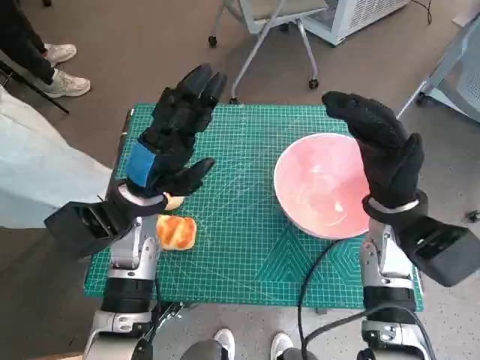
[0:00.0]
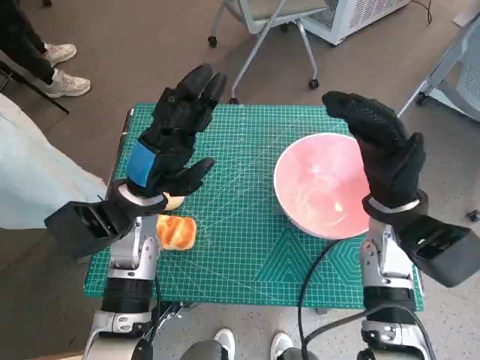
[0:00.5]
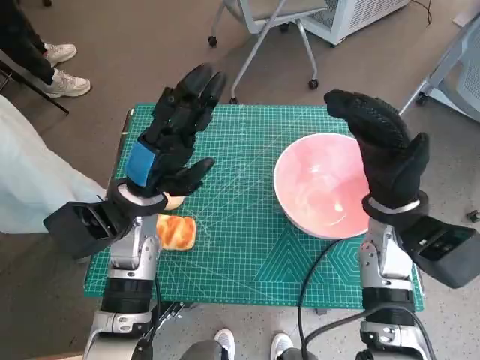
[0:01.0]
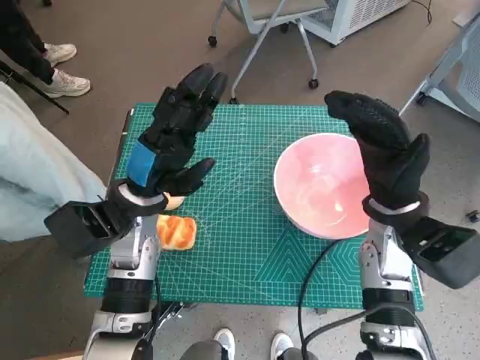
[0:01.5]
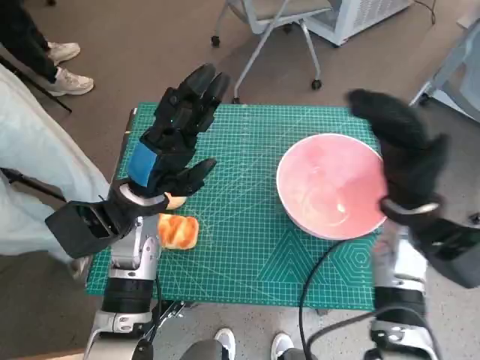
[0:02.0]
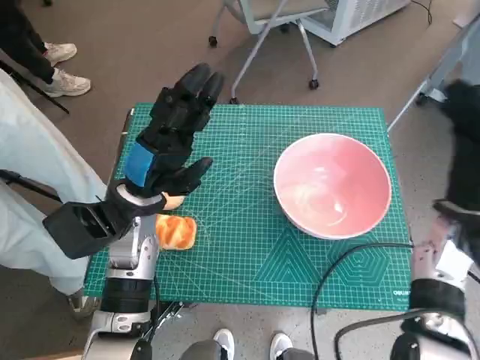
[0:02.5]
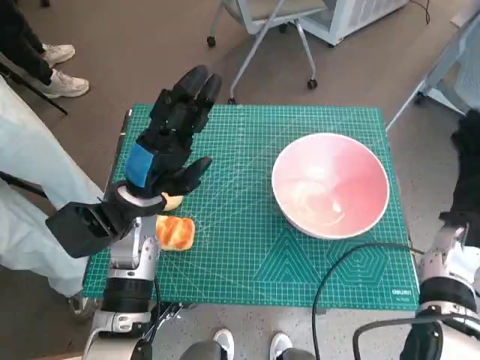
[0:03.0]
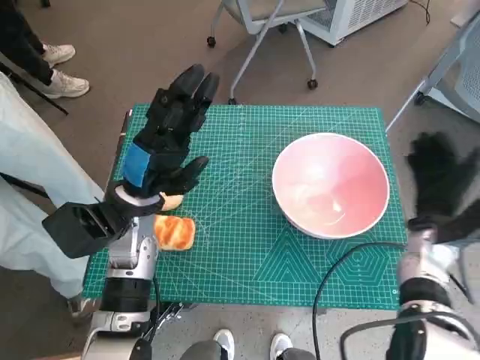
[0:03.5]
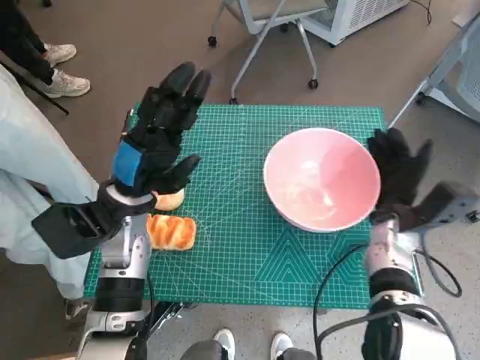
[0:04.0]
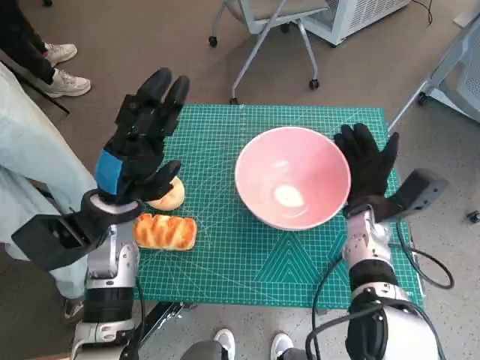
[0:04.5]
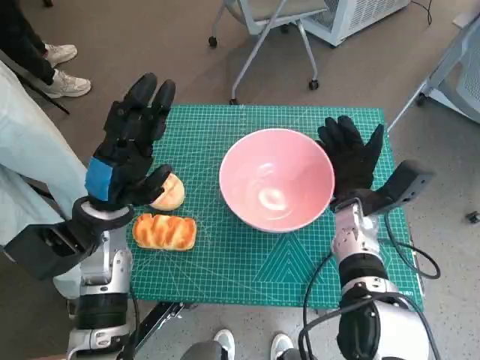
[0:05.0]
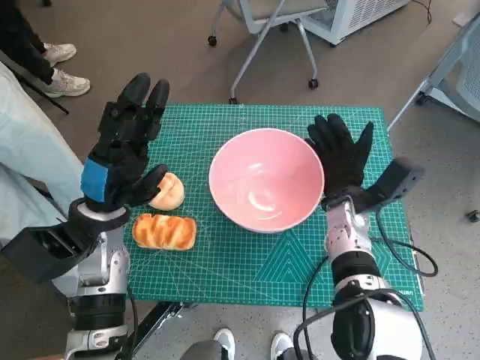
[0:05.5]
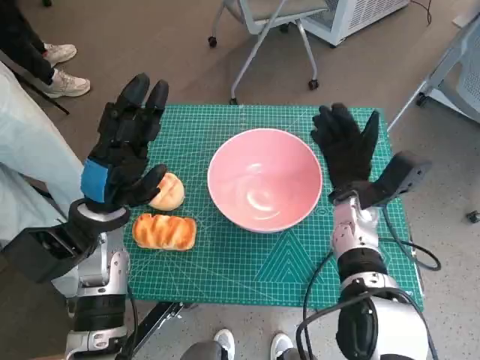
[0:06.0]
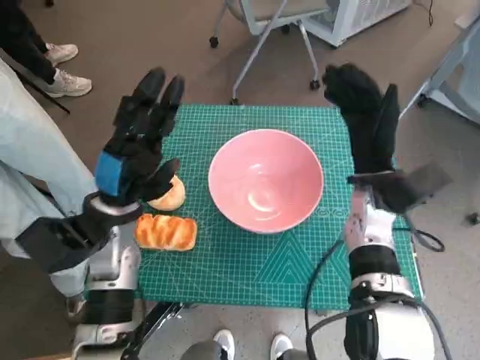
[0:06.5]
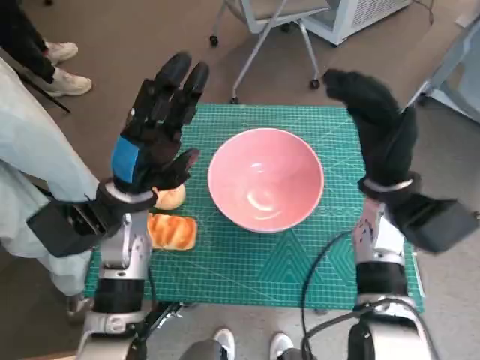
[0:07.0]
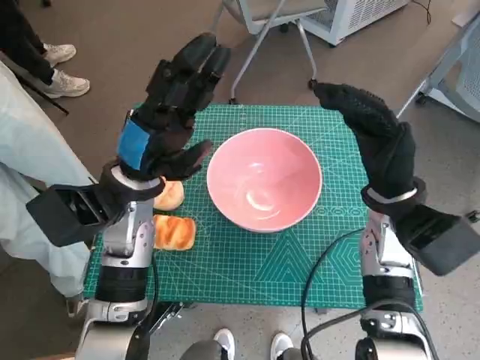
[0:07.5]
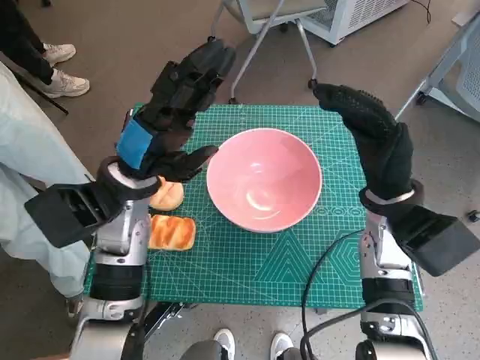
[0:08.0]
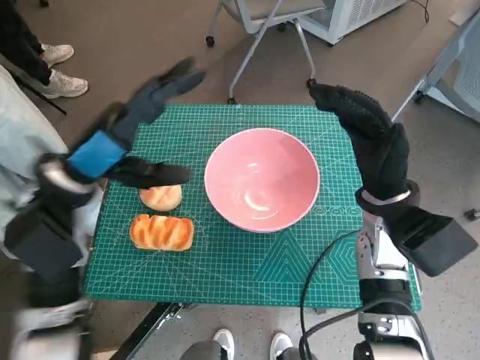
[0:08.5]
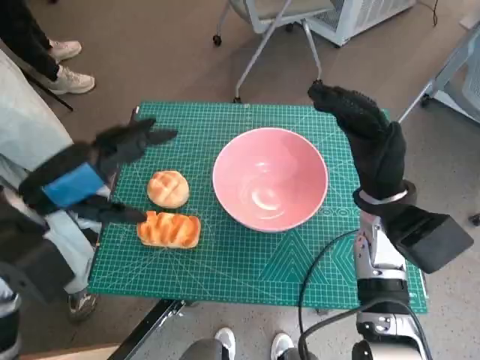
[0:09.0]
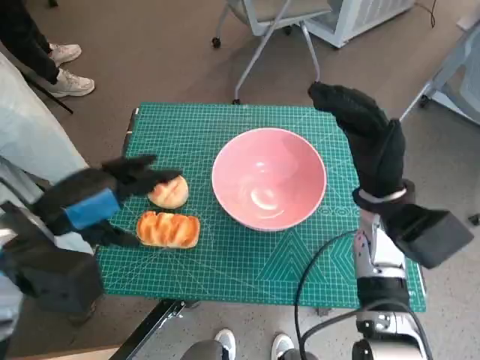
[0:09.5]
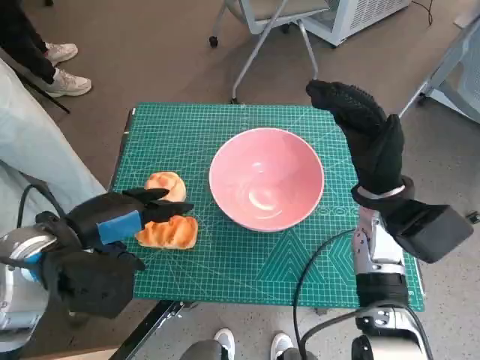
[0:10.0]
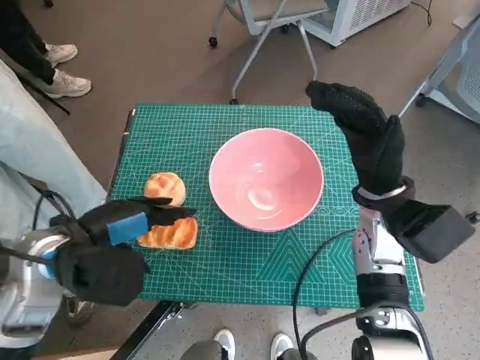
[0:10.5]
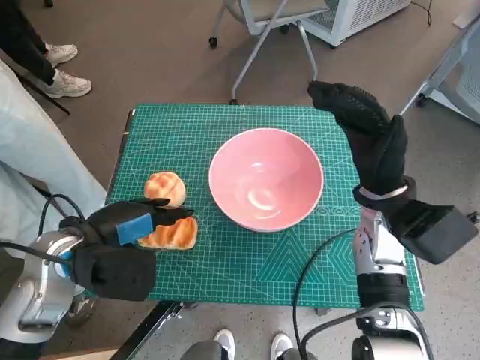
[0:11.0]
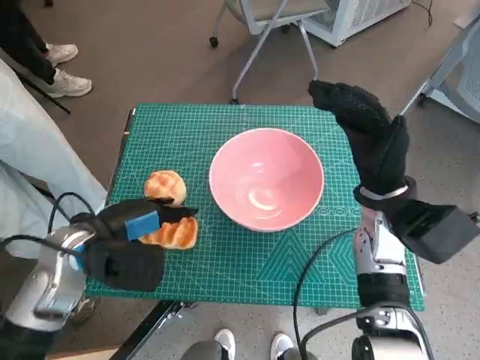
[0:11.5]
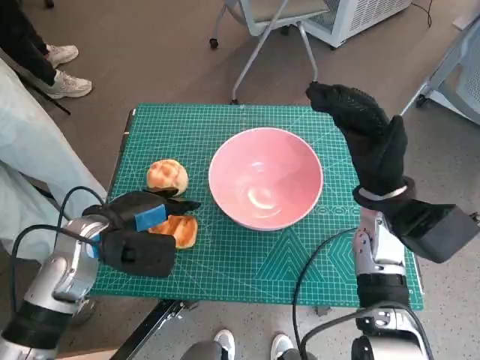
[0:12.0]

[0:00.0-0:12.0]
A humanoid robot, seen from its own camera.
Task of the whole recording: Push the bowl into the center of the table and put the bread into the bowl.
Step, 0:00.0 to 0:06.5: Move the pink bowl to the center of table with right hand.
0:02.0 to 0:04.0: The right hand shifts some 10 cm downward, and reaches roughly 10 cm to the right, then returns.
0:04.0 to 0:06.0: The right hand moves to the left, some 5 cm.
0:06.0 to 0:08.0: The left hand ends up about 5 cm from where it was. The right hand goes approximately 5 cm upward.
0:08.0 to 0:10.0: The left hand heads backward and to the left, covering some 10 cm.
0:10.0 to 0:12.0: The left hand is displaced downward by approximately 5 cm.

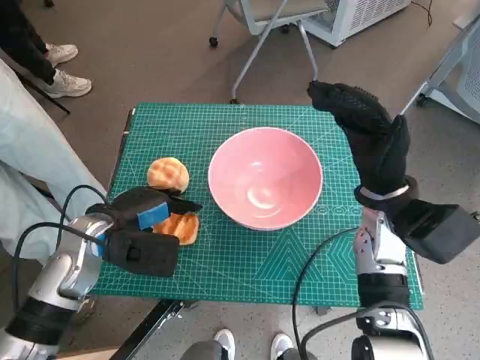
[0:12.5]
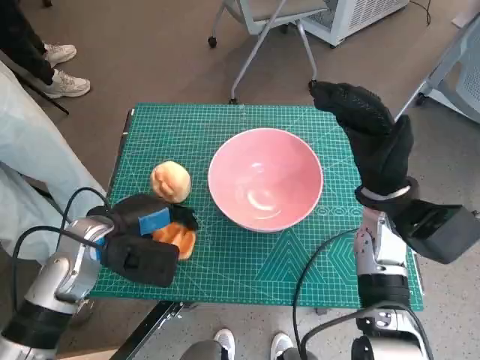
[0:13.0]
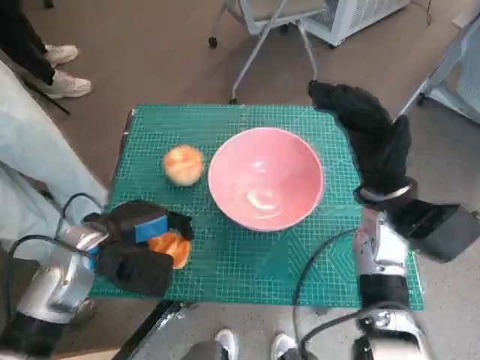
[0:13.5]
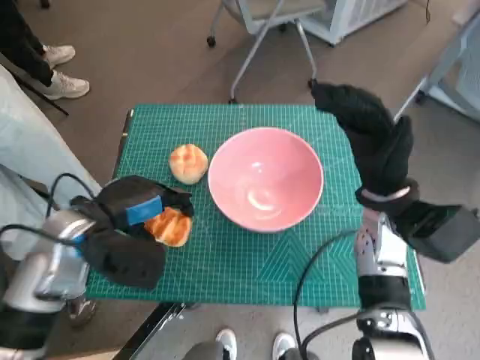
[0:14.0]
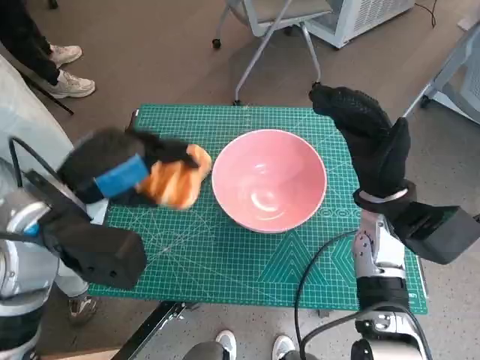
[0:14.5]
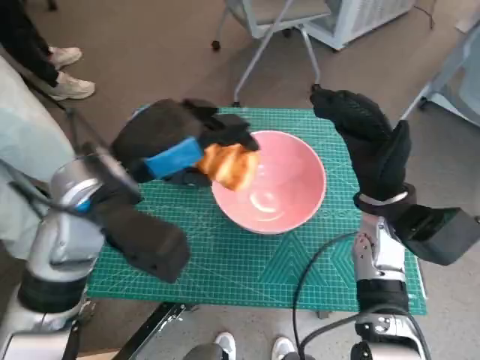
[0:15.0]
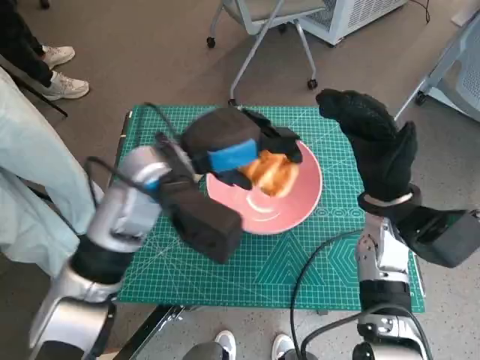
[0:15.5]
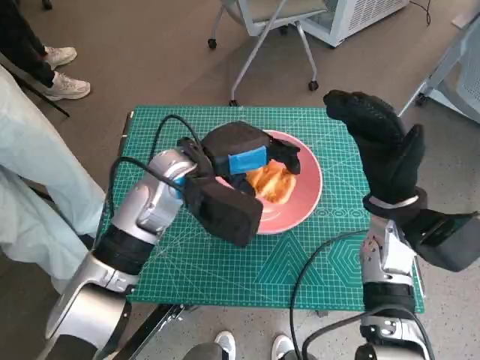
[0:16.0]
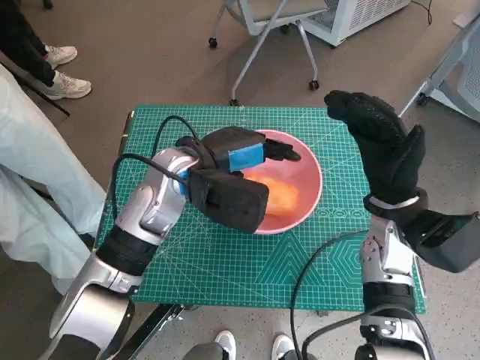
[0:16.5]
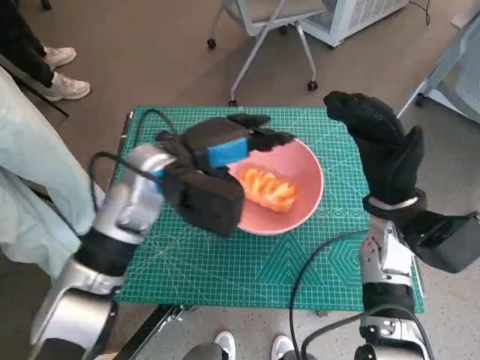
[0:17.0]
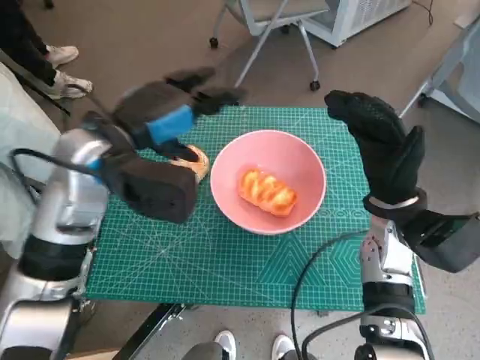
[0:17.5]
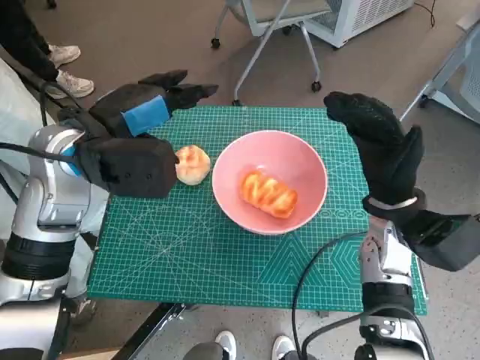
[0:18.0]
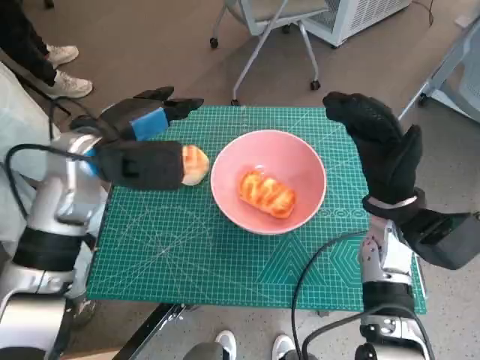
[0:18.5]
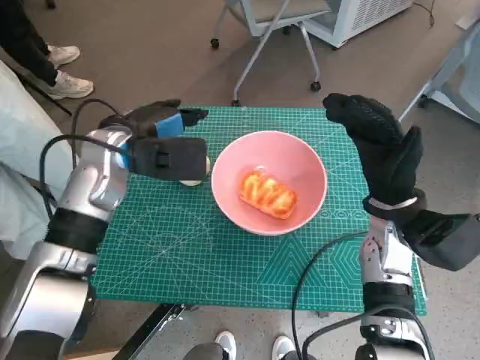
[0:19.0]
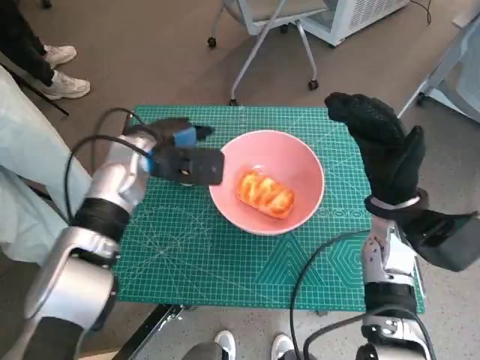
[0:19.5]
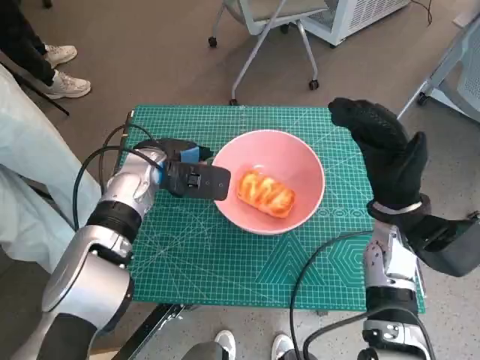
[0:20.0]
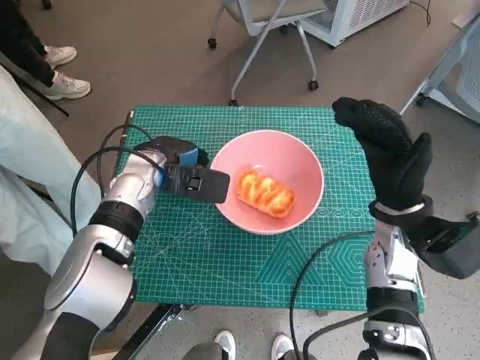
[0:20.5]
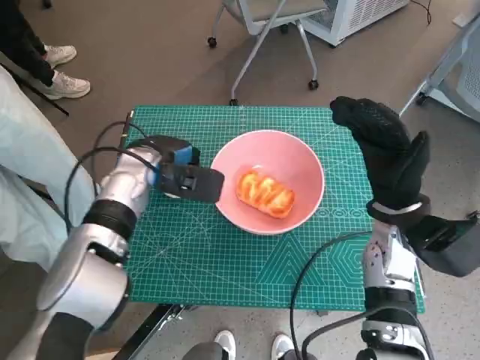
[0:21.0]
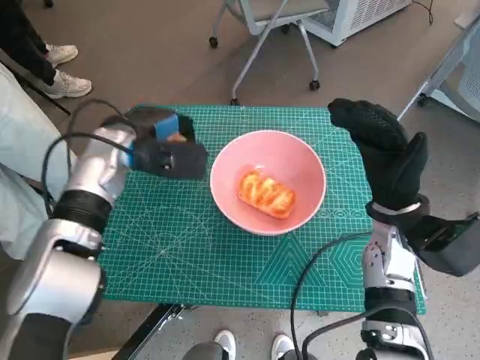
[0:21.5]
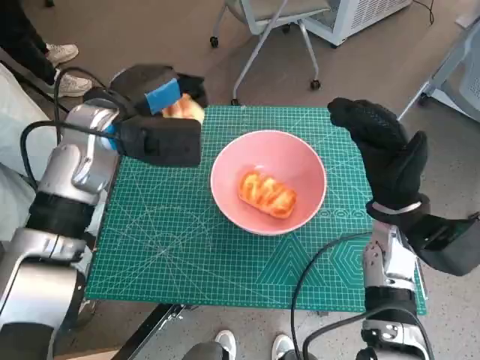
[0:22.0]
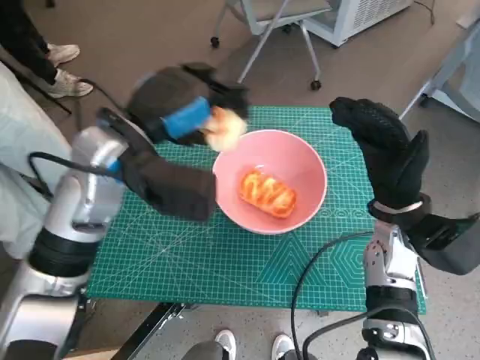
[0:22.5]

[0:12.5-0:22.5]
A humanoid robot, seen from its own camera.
Task of the whole recording: Push the bowl into the center of the table and put the bread into the bowl.
Step, 0:13.0 to 0:17.0: Place the long bread in pink bowl with left hand.
Step, 0:17.5 to 0:20.5: Grasp the round bread with left hand.
0:12.5 to 0:14.5: The left hand moves upward, approximately 10 cm.
0:14.5 to 0:16.5: The left hand shifts roughly 15 cm to the right and forward.
0:16.5 to 0:18.5: The left hand goes roughly 10 cm to the left.
0:18.5 to 0:20.5: The left hand goes approximately 10 cm downward.
0:20.5 to 0:22.5: The left hand goes some 15 cm upward and backward.

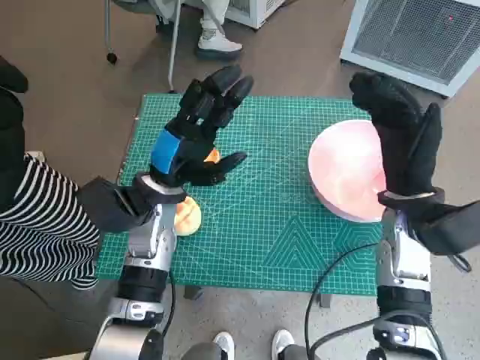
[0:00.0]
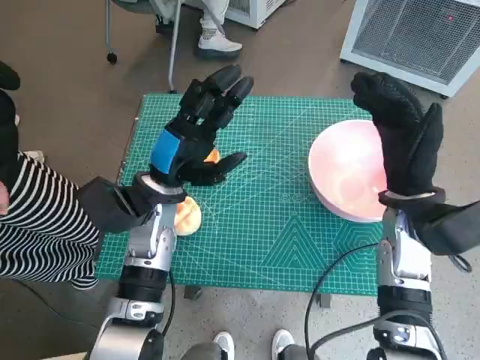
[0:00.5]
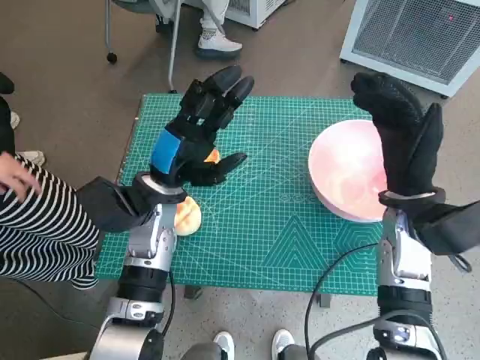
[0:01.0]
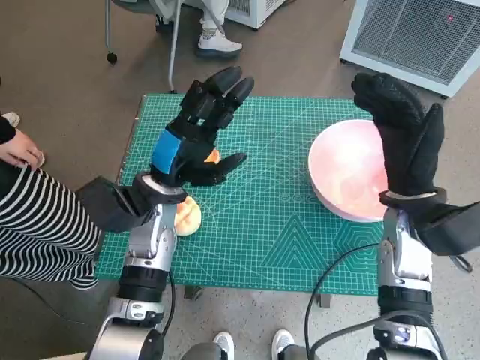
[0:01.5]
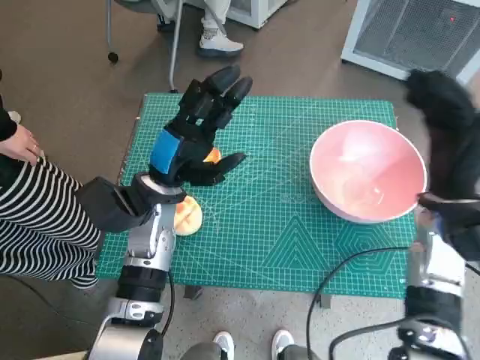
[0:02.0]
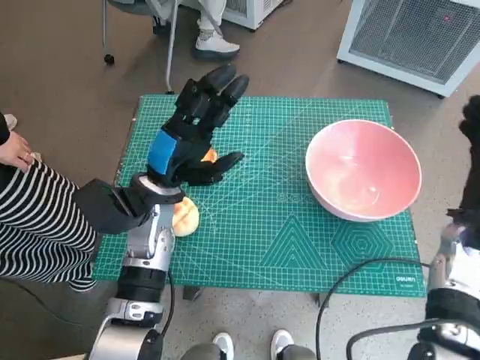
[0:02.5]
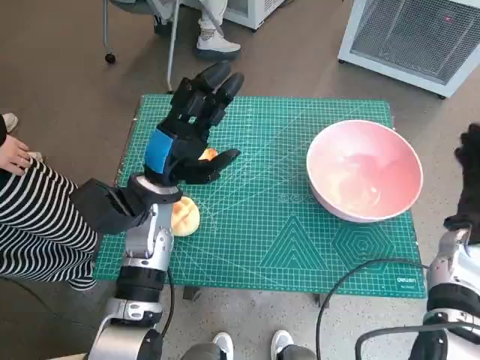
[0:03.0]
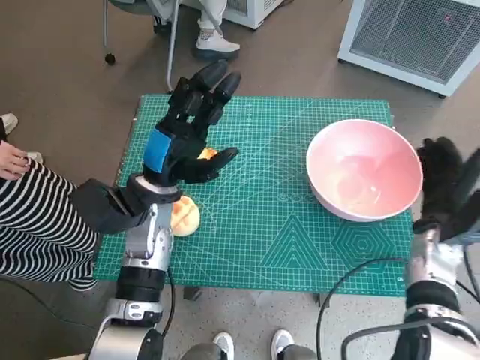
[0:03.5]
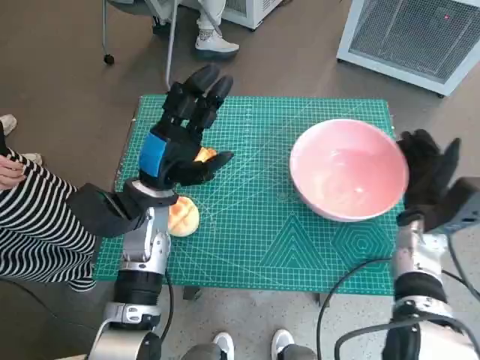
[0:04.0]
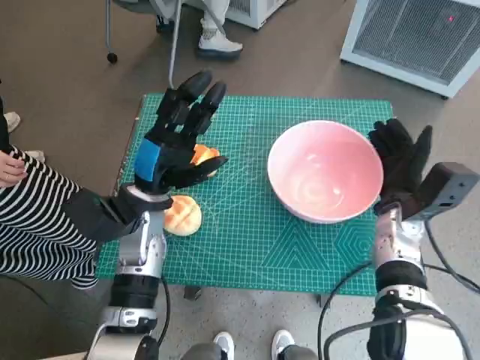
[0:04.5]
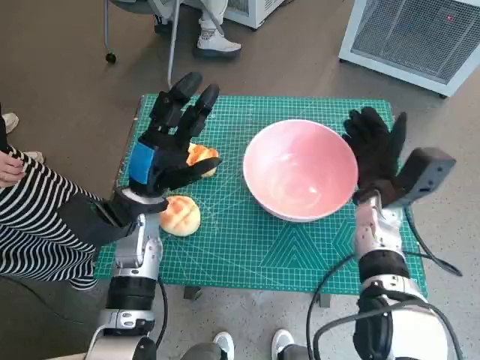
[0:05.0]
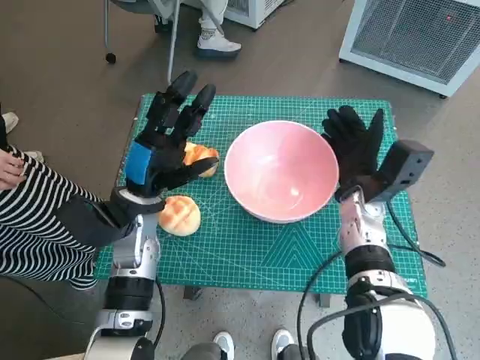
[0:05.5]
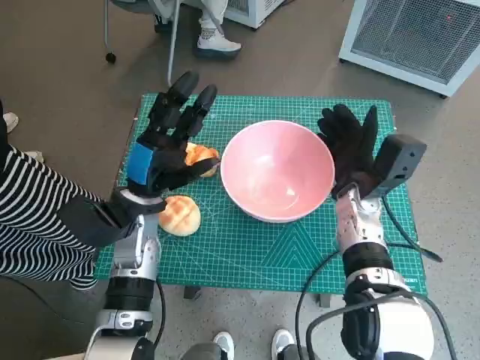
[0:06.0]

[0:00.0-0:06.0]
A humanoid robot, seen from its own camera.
Task of the whole recording: Push the bowl into the center of the table and put the bread into the bowl.
0:02.0 to 0:04.0: The right hand moves downward, some 10 cm.
0:04.0 to 0:06.0: The right hand goes some 10 cm to the left.
